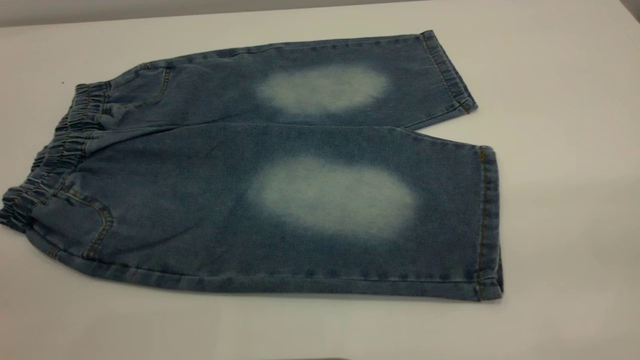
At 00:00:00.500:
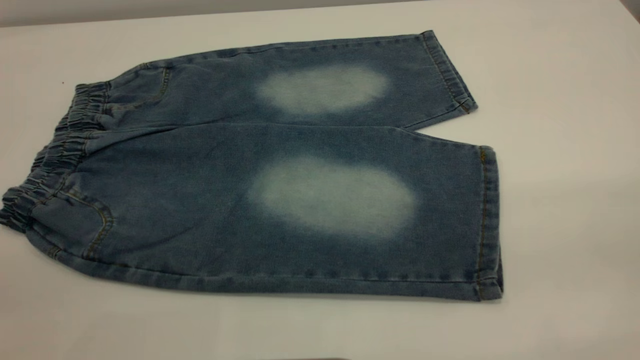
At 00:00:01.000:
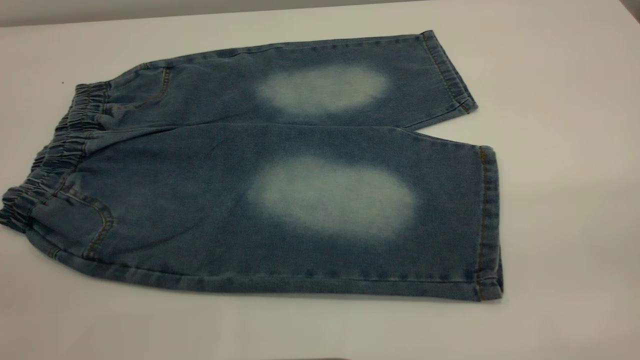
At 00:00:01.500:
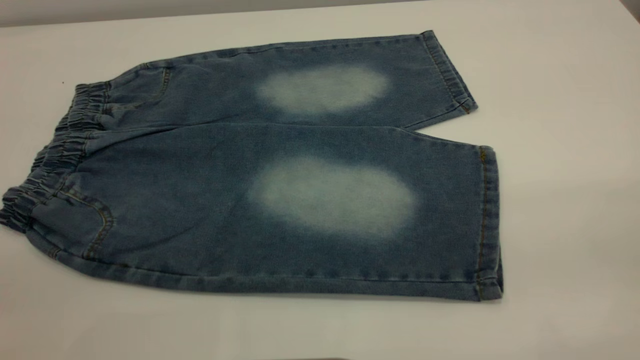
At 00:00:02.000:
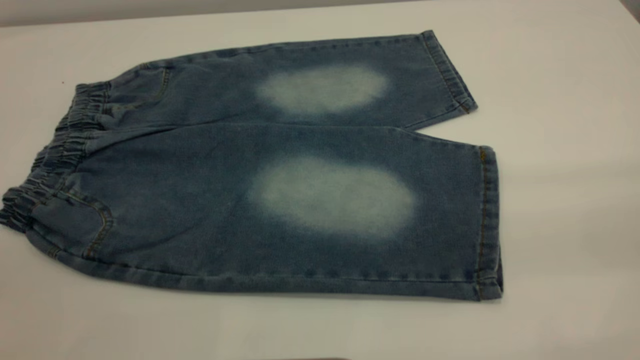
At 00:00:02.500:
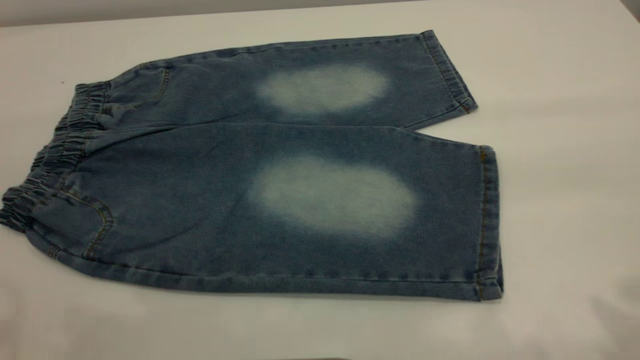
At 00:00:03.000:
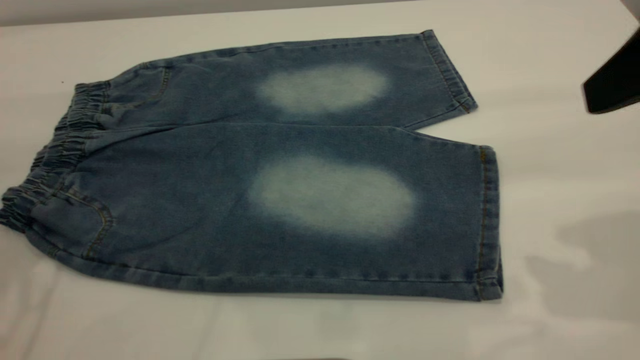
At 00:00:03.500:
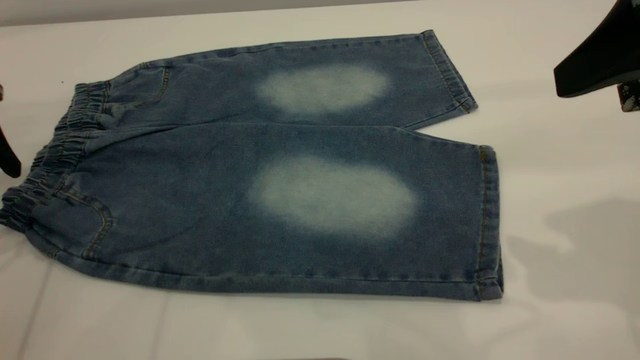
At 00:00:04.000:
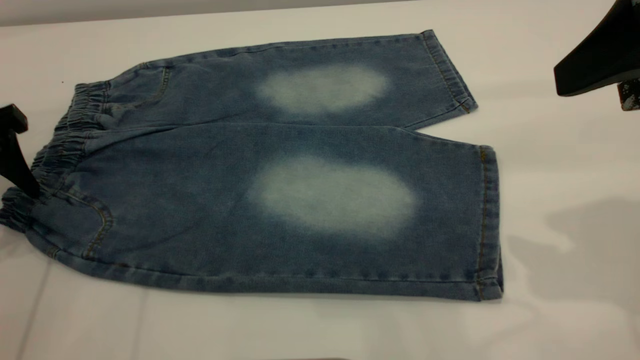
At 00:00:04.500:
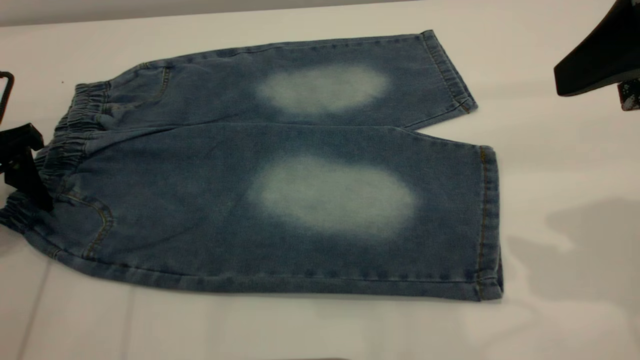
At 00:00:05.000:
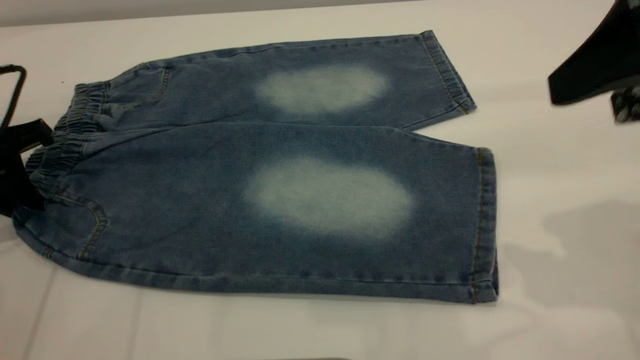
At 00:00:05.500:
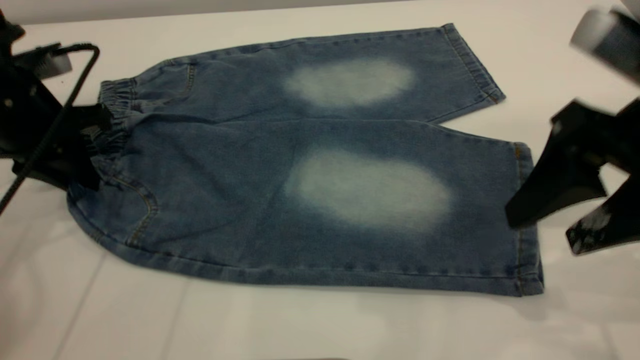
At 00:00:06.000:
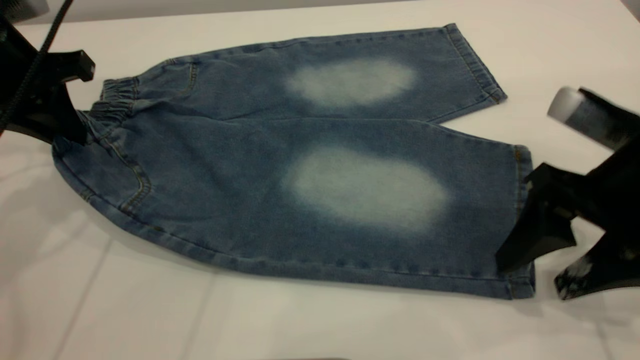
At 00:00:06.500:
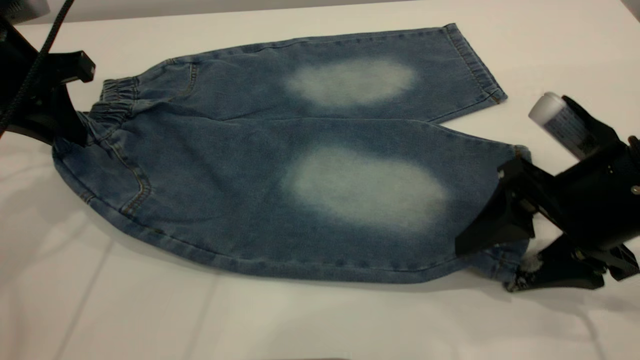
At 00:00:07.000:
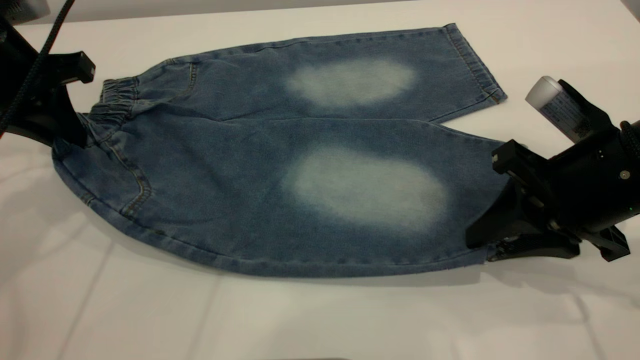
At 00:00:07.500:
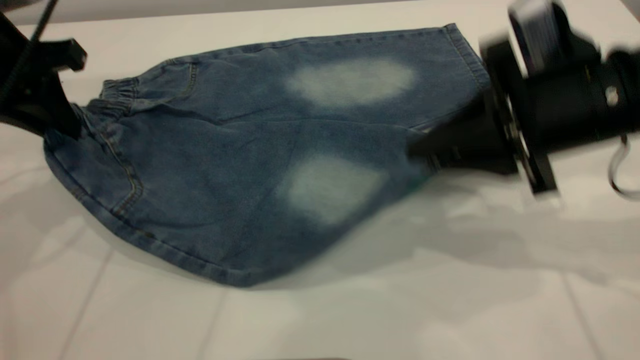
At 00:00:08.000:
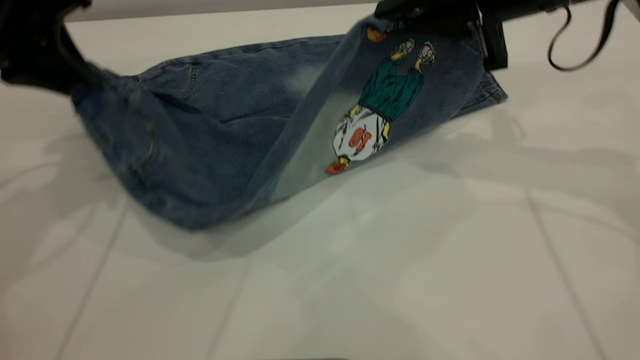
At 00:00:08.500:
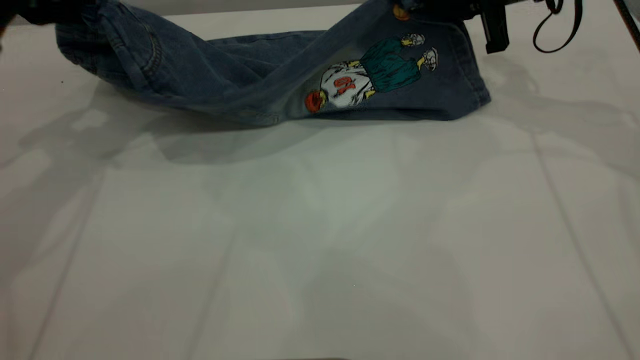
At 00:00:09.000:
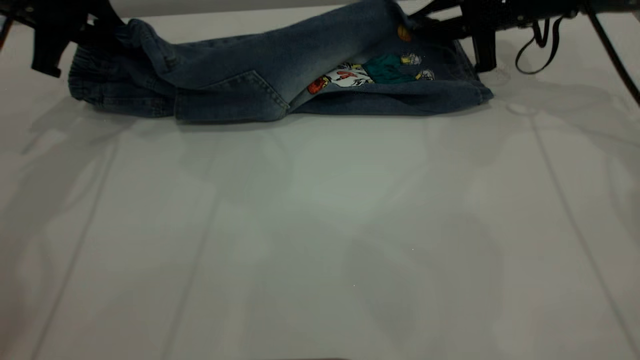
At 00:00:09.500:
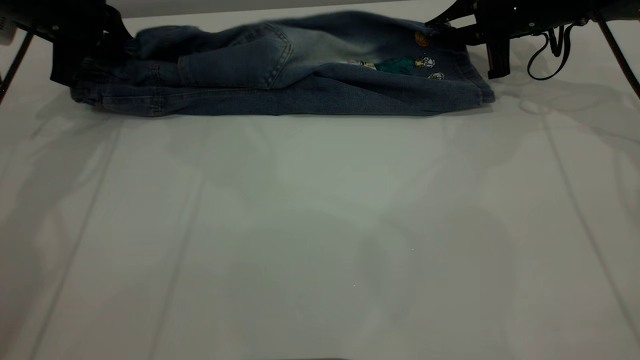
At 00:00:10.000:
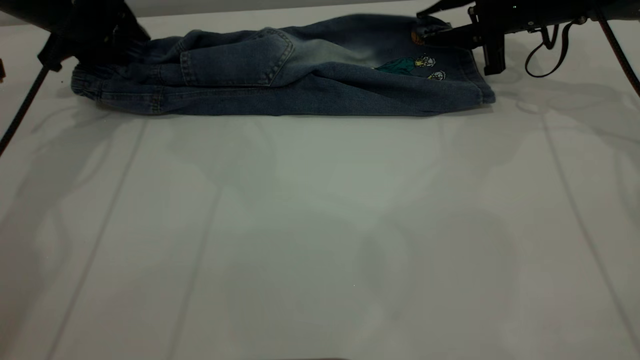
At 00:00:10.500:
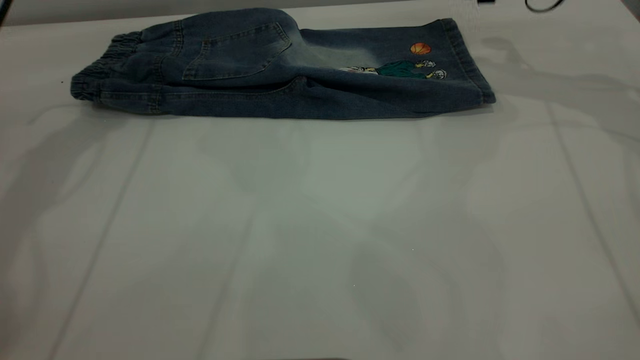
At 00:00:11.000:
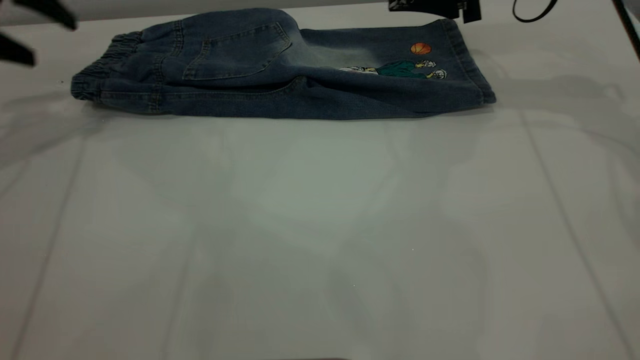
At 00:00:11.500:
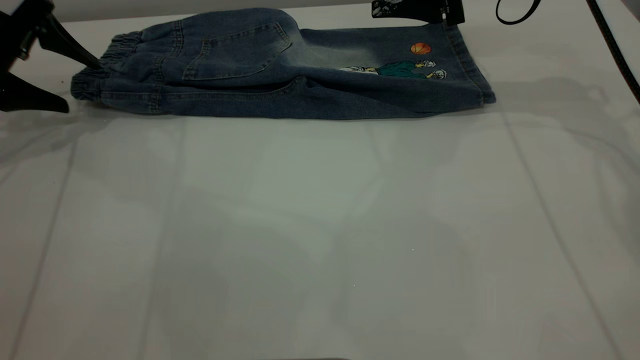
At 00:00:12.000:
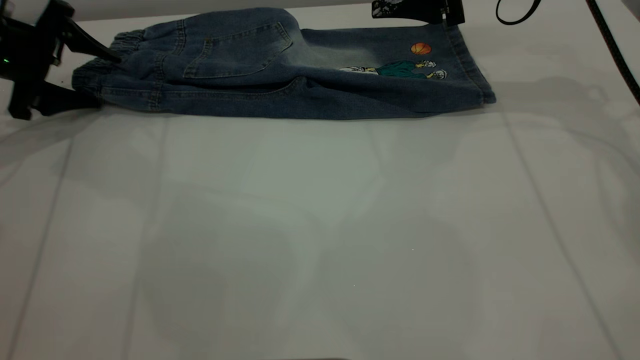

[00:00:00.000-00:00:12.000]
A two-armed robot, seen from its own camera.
Step, 00:00:00.000 to 00:00:10.000: Fold the bottom of the pants upward.
00:00:02.000 to 00:00:04.000: The left gripper heads forward and downward, covering roughly 35 cm; the right gripper goes approximately 20 cm forward and downward.
00:00:04.000 to 00:00:06.000: The right gripper is displaced downward by some 15 cm. Meanwhile the left gripper heads to the right, covering some 5 cm, and closes up.
00:00:06.000 to 00:00:08.000: The right gripper is displaced forward and upward by roughly 15 cm, and closes.
00:00:08.000 to 00:00:10.000: The left gripper is displaced forward and downward by some 15 cm, and opens; the right gripper travels forward, downward and to the right by roughly 15 cm, and opens up.
00:00:10.000 to 00:00:12.000: The right gripper goes approximately 10 cm upward and to the left, and opens up; the left gripper moves to the left, approximately 5 cm.

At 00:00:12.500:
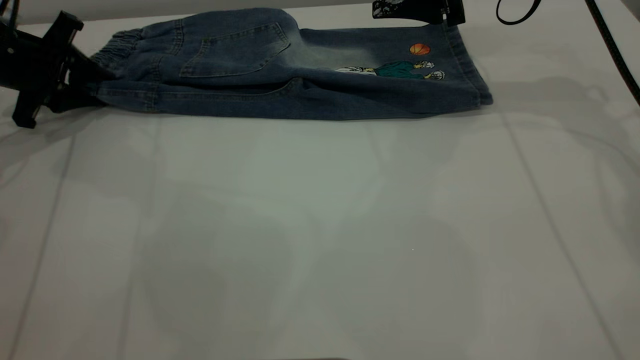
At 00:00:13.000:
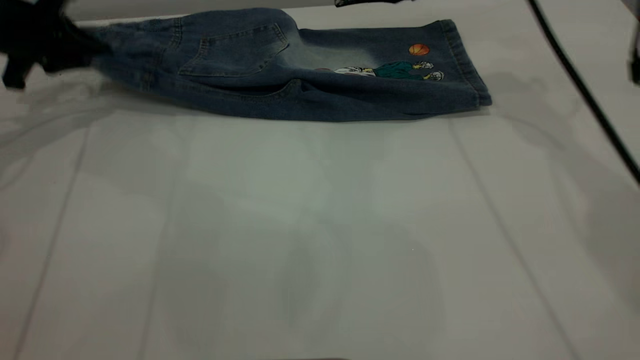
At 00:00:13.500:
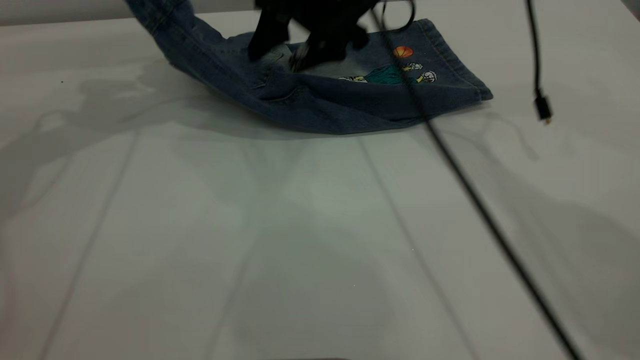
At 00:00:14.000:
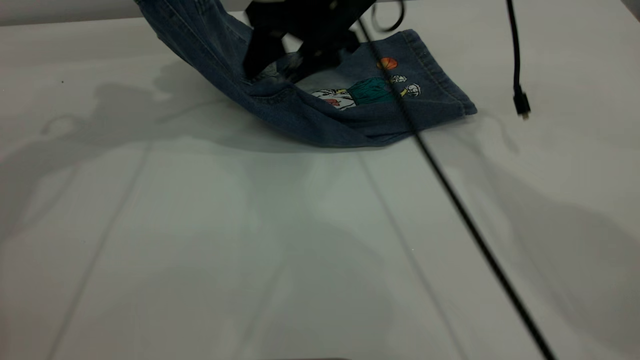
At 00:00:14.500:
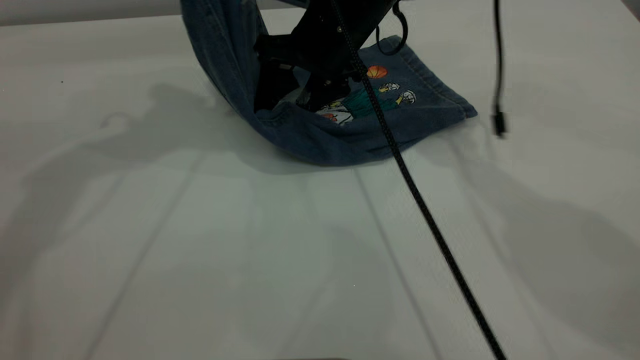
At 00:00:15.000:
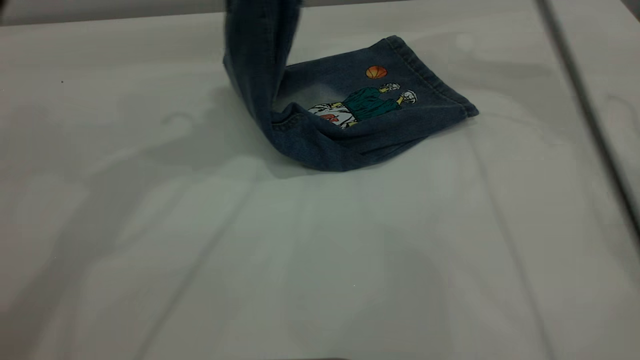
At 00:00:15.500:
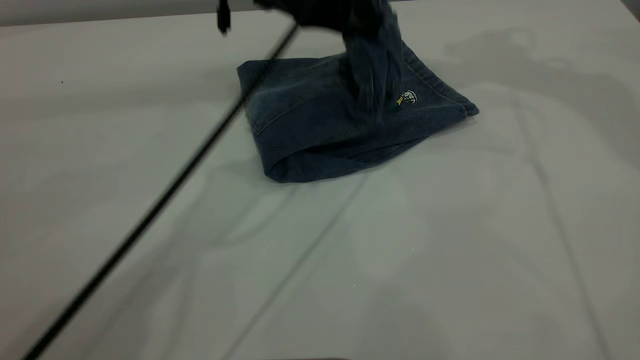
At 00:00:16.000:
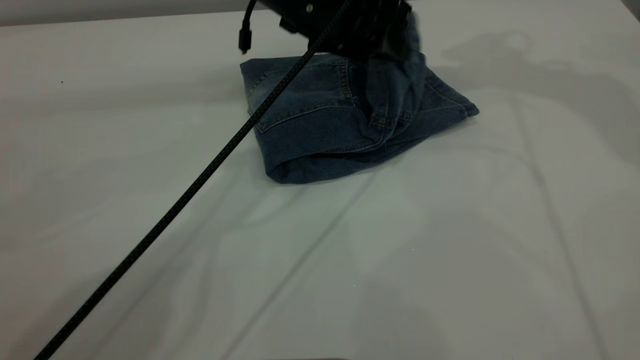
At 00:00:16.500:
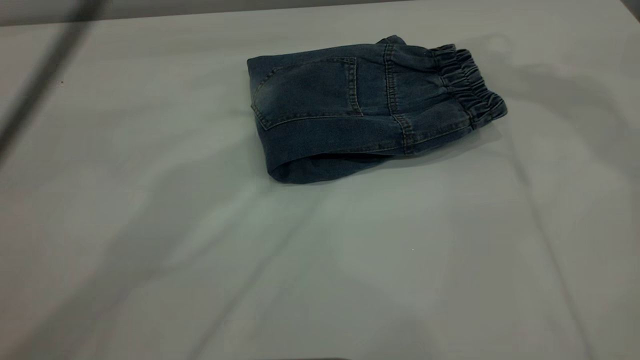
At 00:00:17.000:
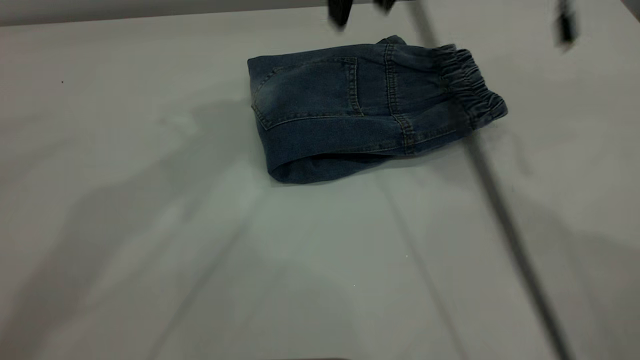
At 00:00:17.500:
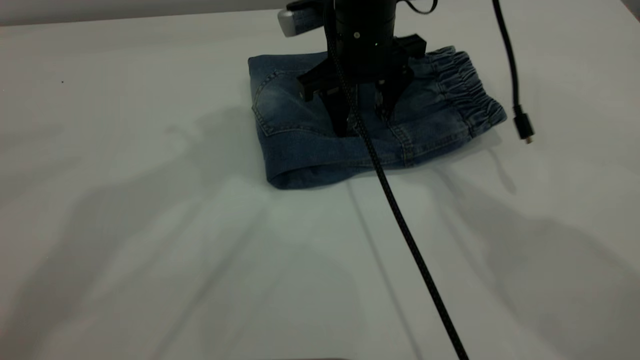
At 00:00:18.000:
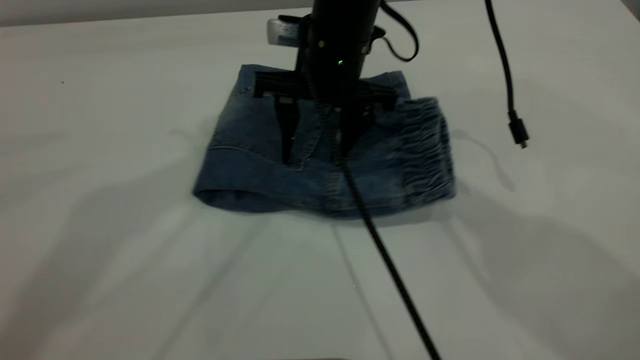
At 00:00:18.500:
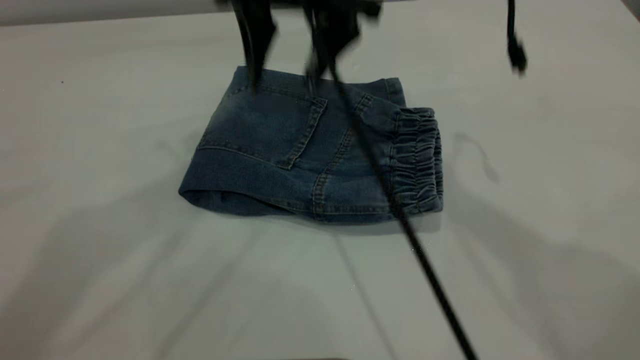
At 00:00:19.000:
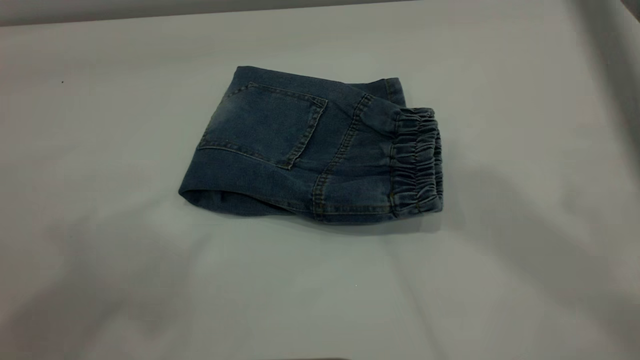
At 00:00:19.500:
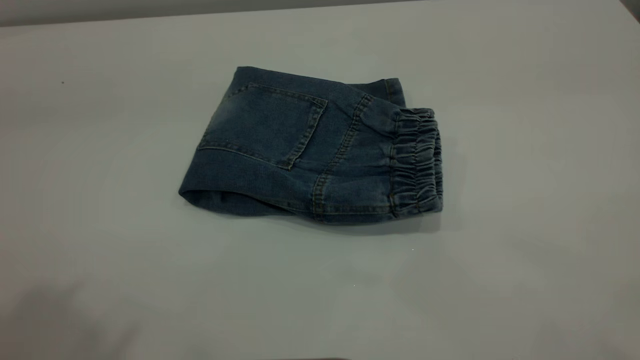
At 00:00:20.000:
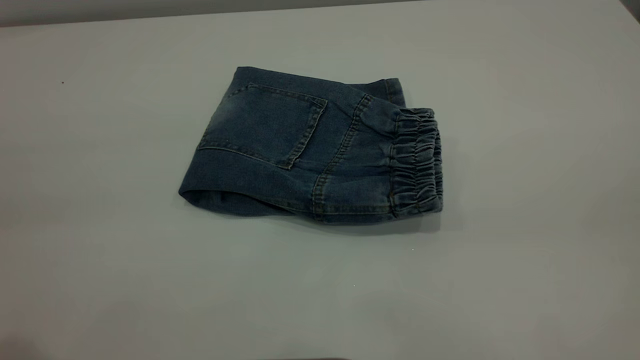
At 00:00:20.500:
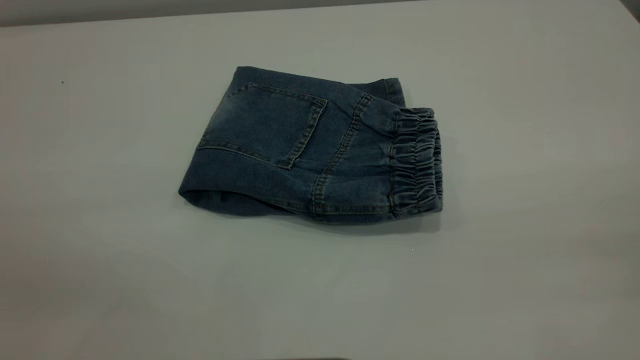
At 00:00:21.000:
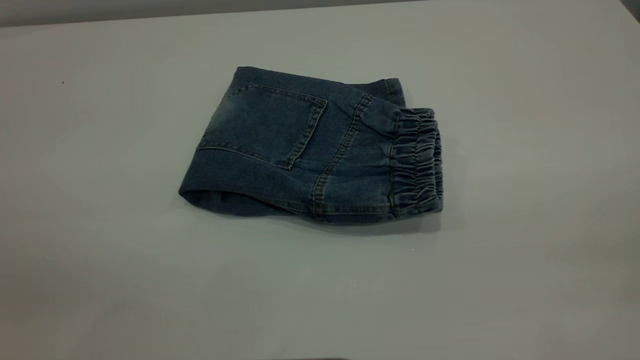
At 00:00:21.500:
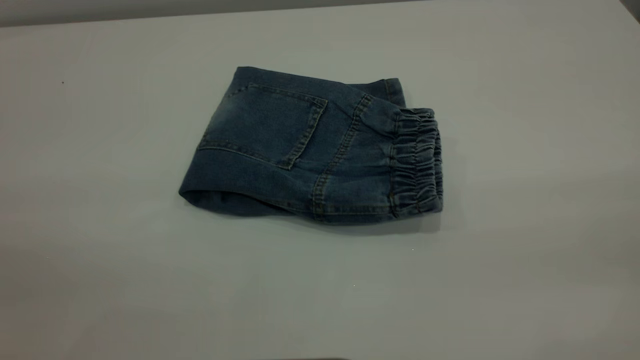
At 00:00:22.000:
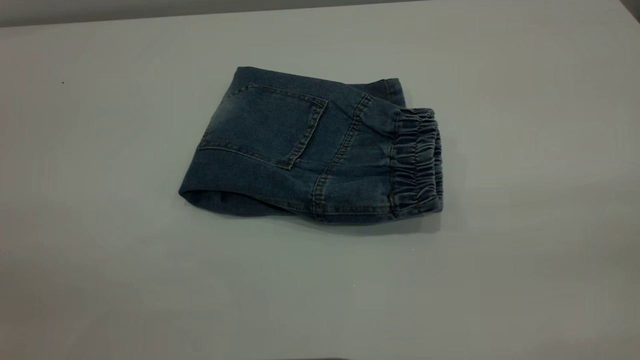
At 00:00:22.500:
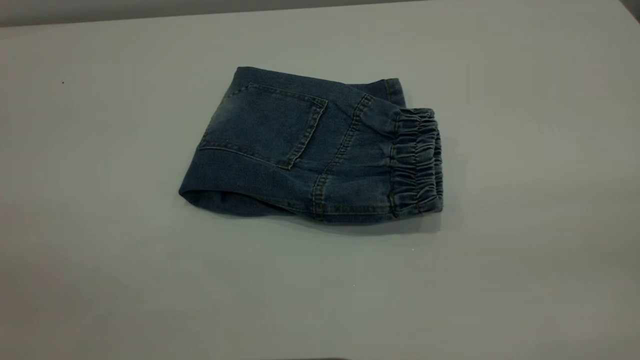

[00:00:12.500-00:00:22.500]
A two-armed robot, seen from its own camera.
Step, 00:00:12.500 to 00:00:16.000: Fold the pants from left to right.
00:00:12.500 to 00:00:14.500: The left gripper goes about 25 cm upward and to the right, while the right gripper moves to the left, about 15 cm.
00:00:14.500 to 00:00:16.500: The left gripper shifts roughly 10 cm to the right, goes downward and returns, roughly 15 cm each way, and opens its fingers, while the right gripper is displaced upward and to the right by roughly 30 cm.
00:00:16.500 to 00:00:18.500: The right gripper heads to the left and downward, covering about 20 cm. Meanwhile the left gripper heads upward, backward and to the left, covering roughly 15 cm.
00:00:18.500 to 00:00:20.500: The right gripper moves backward and to the right, roughly 50 cm, while the left gripper is displaced backward, downward and to the left by approximately 30 cm.
